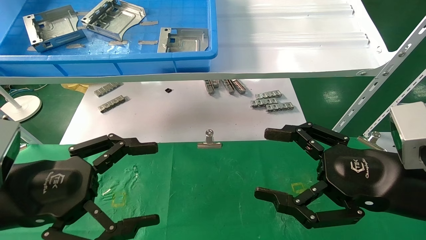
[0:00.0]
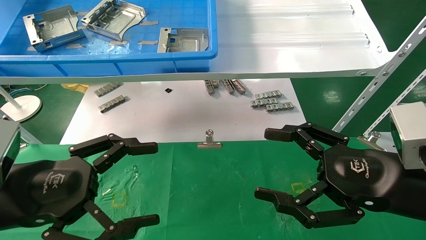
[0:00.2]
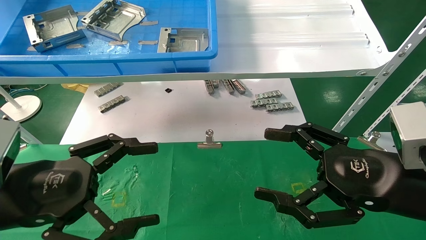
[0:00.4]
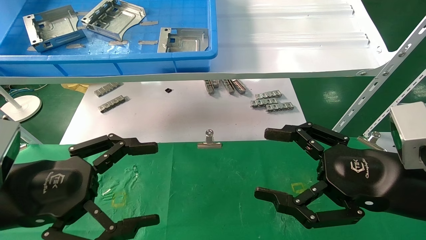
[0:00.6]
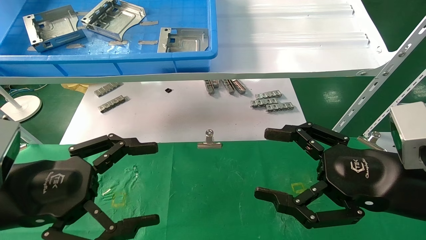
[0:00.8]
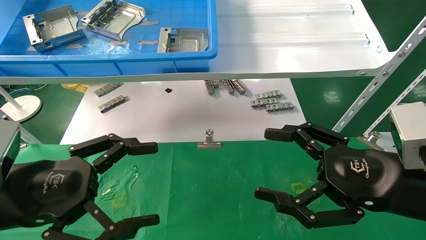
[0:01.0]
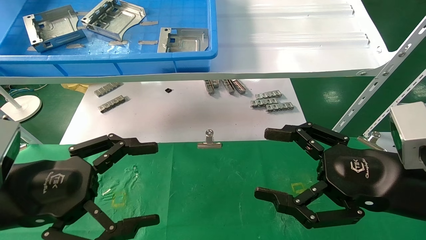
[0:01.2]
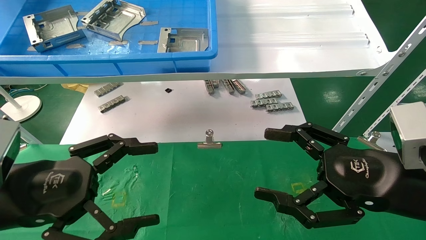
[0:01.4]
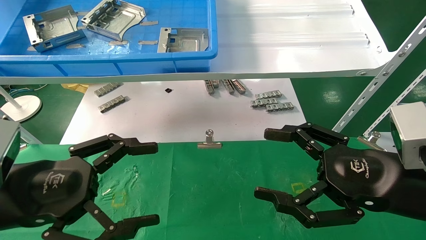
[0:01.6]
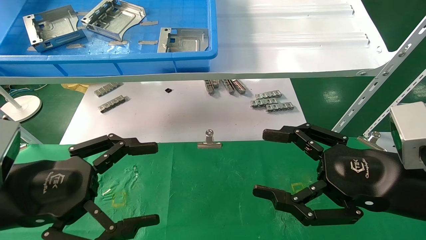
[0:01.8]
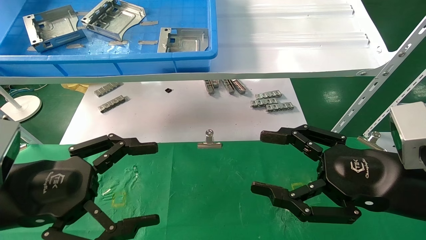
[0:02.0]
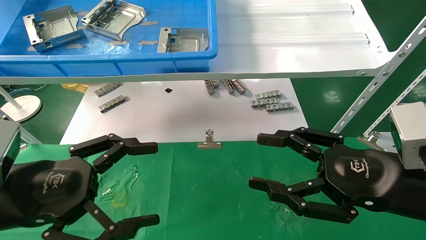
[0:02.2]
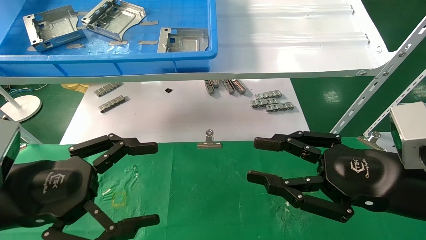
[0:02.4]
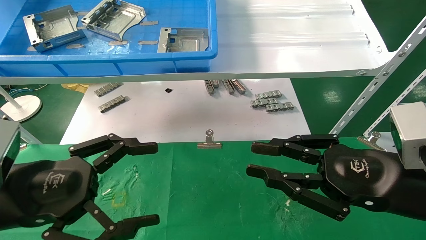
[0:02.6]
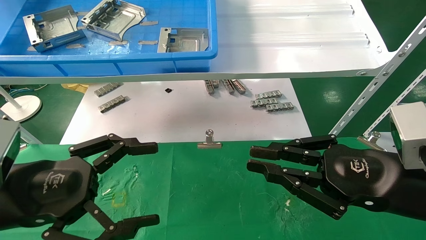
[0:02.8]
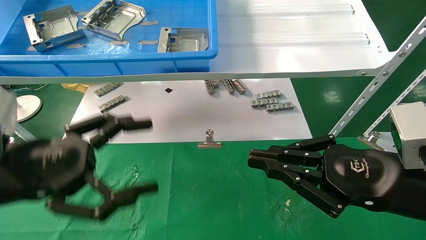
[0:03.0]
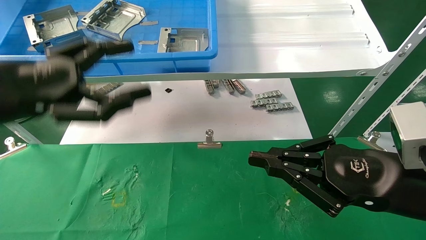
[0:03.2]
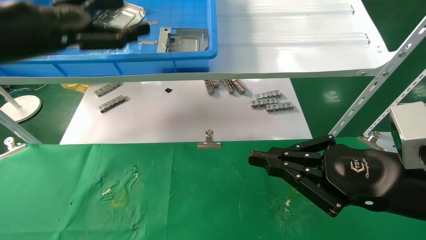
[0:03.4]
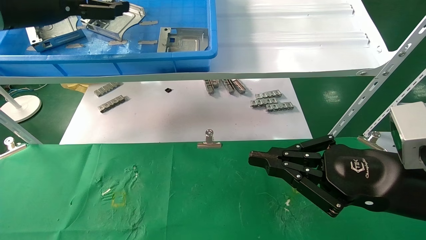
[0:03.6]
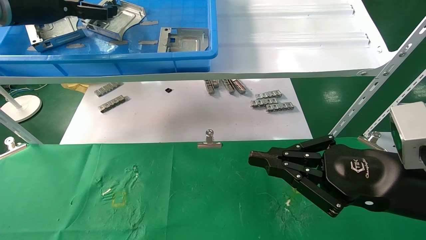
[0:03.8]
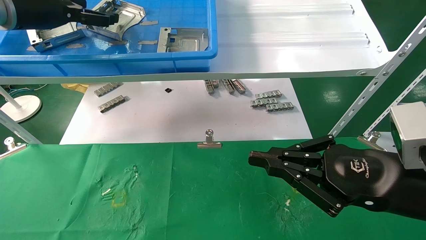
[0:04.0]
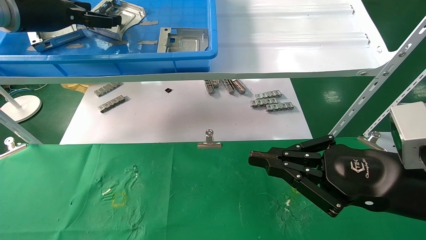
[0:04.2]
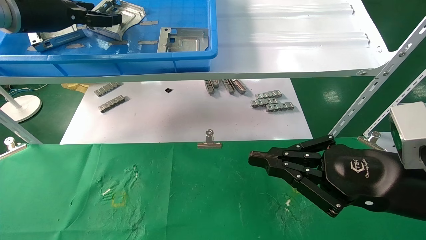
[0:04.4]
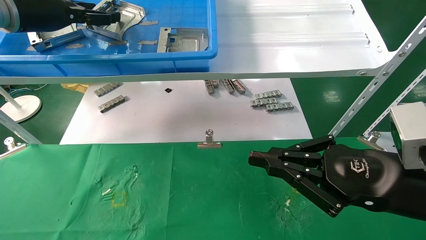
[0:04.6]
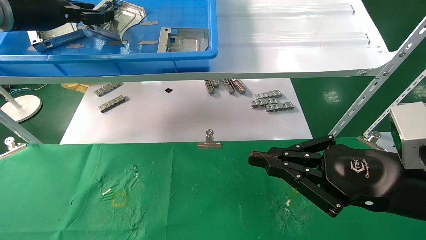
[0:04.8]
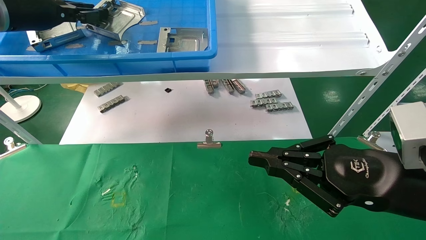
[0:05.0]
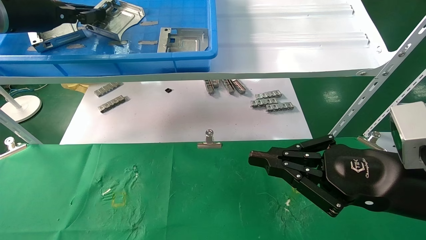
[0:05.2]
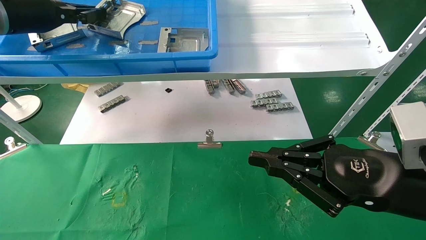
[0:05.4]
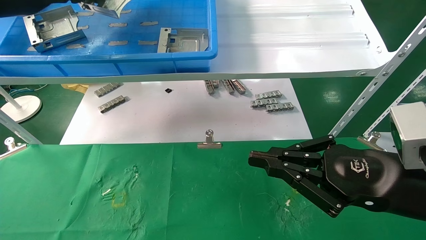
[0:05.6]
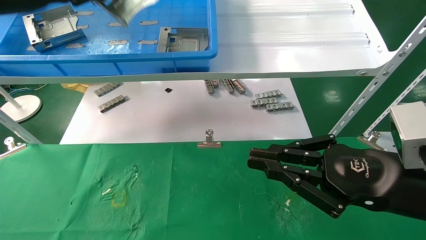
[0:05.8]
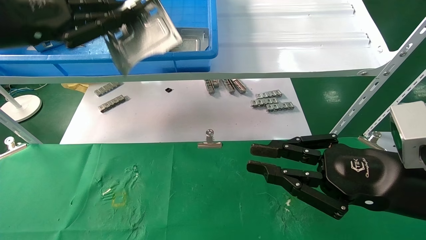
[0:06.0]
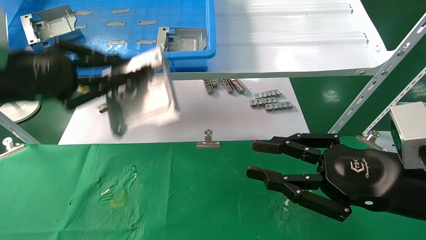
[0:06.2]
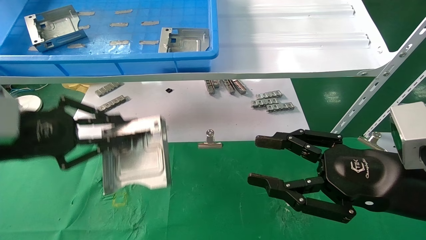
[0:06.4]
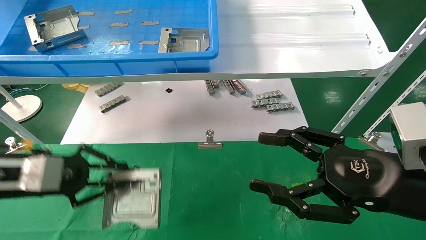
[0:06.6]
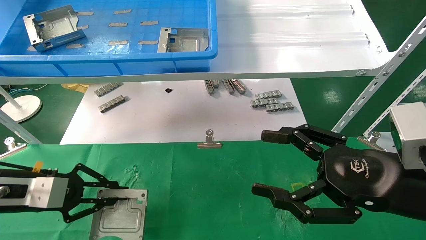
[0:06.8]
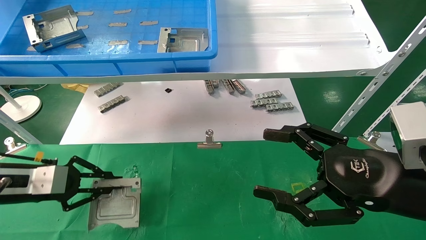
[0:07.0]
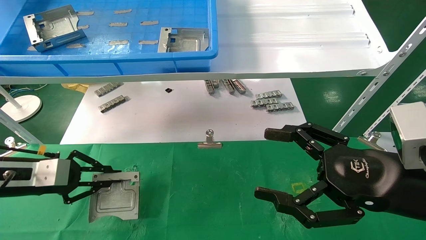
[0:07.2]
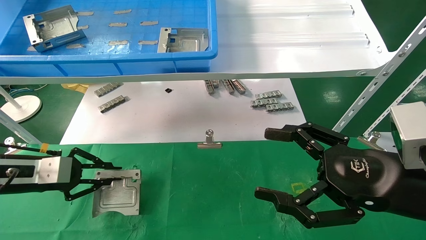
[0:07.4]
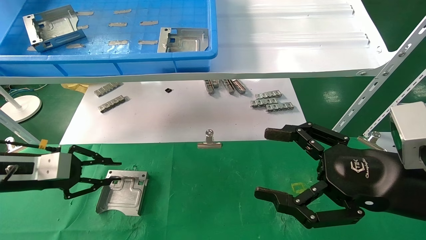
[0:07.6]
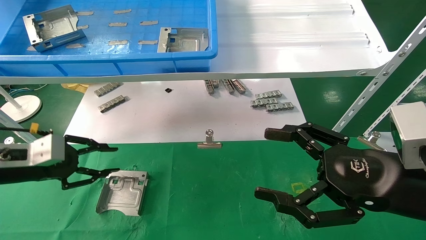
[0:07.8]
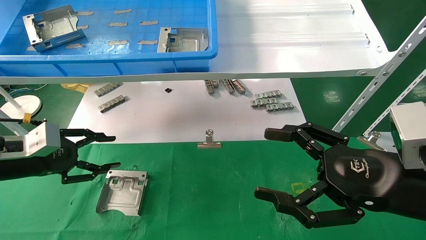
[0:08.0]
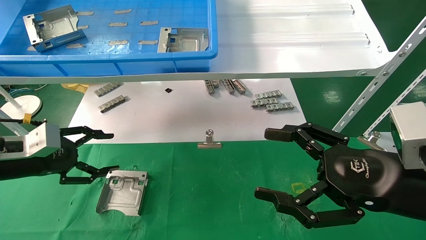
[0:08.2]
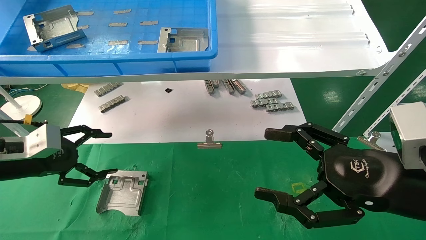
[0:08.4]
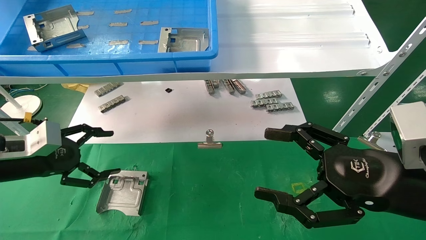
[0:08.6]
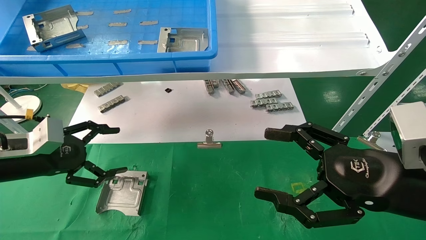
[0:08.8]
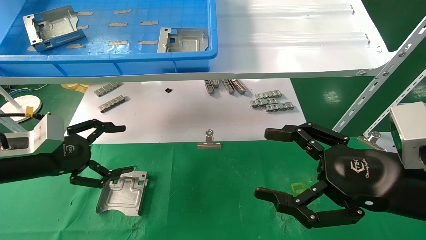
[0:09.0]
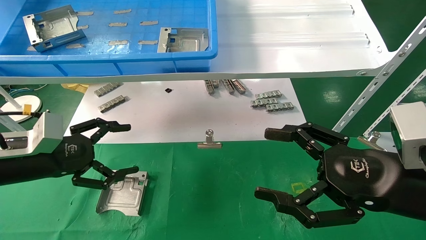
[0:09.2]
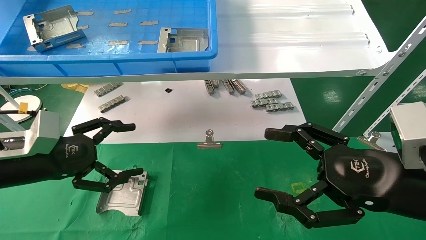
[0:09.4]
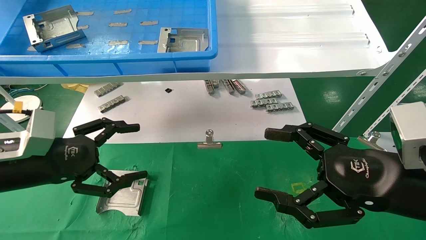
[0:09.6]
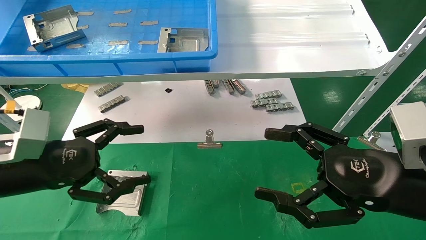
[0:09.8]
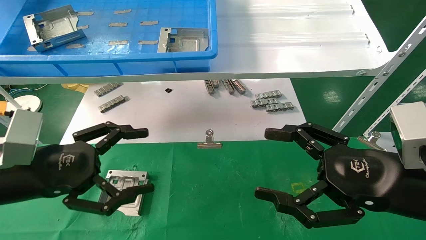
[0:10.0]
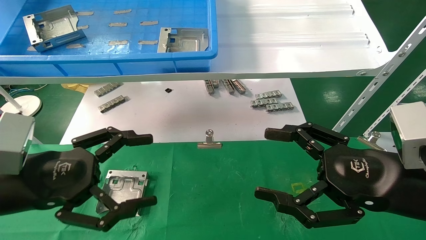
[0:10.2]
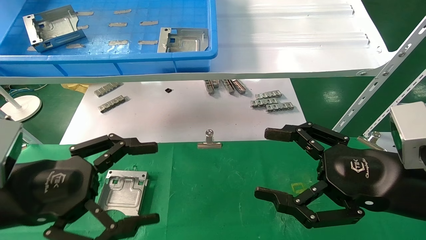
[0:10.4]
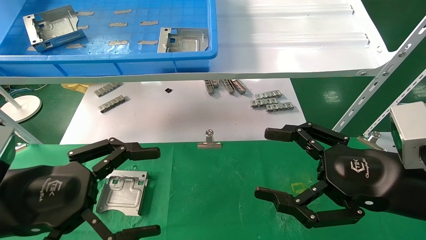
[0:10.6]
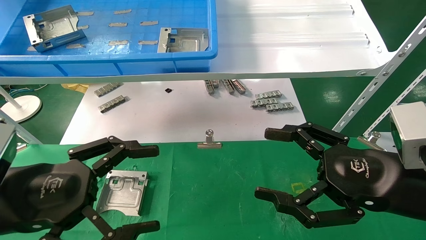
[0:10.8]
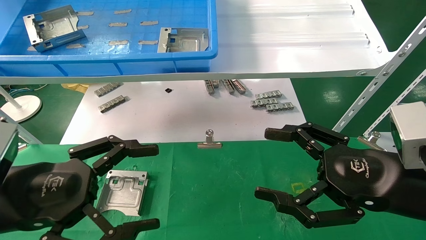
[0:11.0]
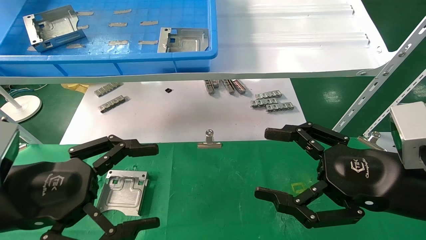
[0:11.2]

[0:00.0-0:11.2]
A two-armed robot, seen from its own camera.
Task of the whole recording: use the mechanical arm to pick up the parts and place them on the table.
Step, 0:03.2 to 0:05.2: Pick up the hard drive bracket from the feeding area.
Step, 0:05.4 to 0:07.8: Place the hard drive bracket into the box.
0:00.0 to 0:01.6: The two grippers keep their place.
0:01.6 to 0:03.2: The left gripper heads upward and forward, covering roughly 10 cm, while the right gripper closes its fingers.
0:03.2 to 0:04.8: The left gripper shifts approximately 20 cm forward and upward, and closes its fingers.
0:04.8 to 0:06.4: The left gripper travels downward and backward by some 20 cm, and closes its fingers; the right gripper opens up.
0:06.4 to 0:08.0: The right gripper opens up. The left gripper shifts roughly 10 cm downward and to the left, and opens.
0:08.0 to 0:09.6: The left gripper moves to the right and backward, some 10 cm, and opens.
0:09.6 to 0:11.2: The left gripper shifts roughly 10 cm backward.

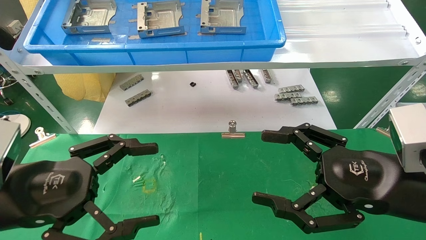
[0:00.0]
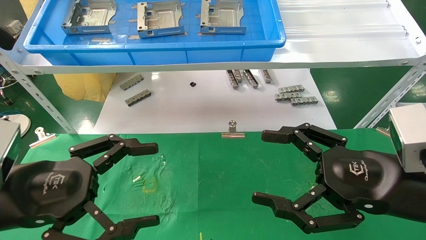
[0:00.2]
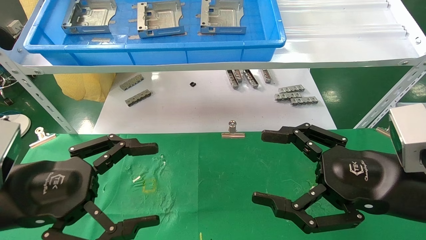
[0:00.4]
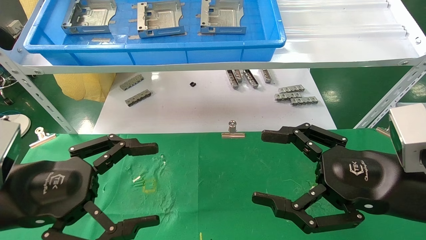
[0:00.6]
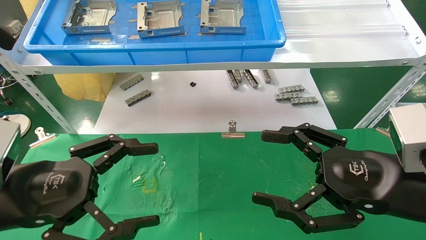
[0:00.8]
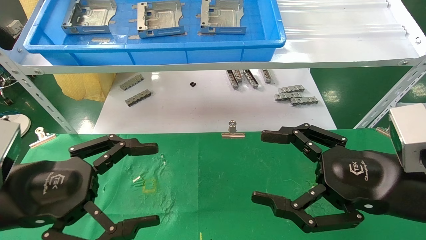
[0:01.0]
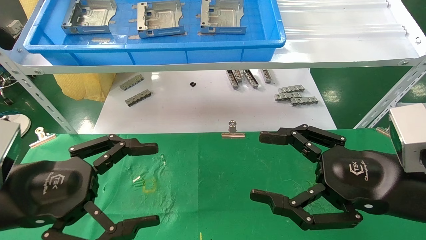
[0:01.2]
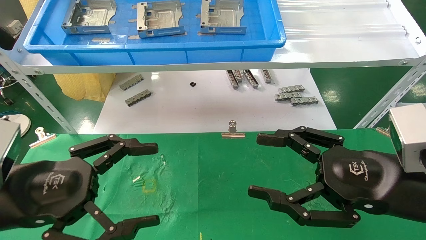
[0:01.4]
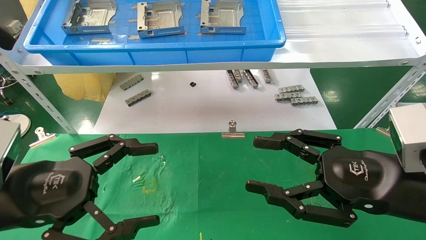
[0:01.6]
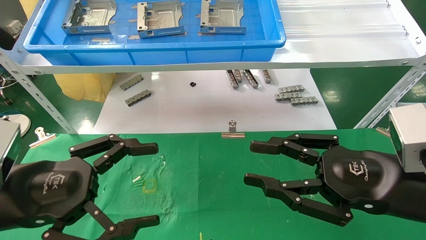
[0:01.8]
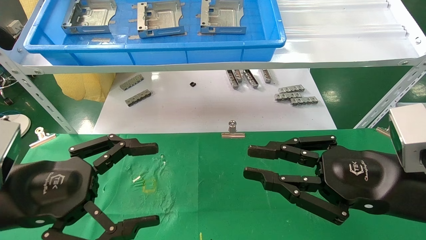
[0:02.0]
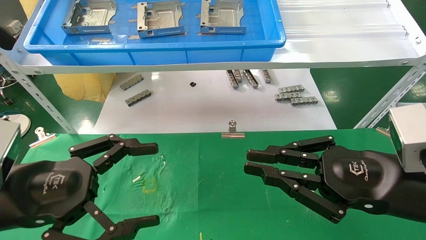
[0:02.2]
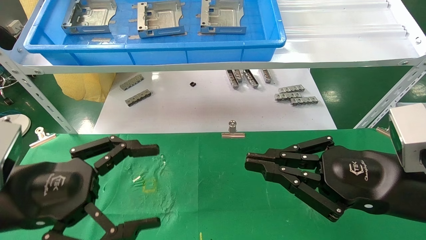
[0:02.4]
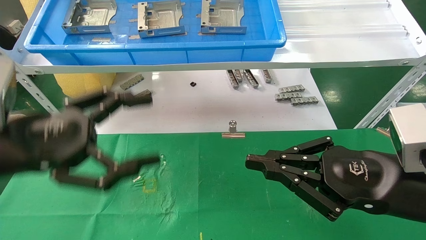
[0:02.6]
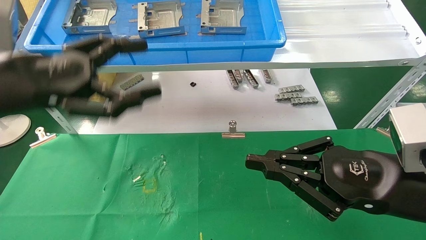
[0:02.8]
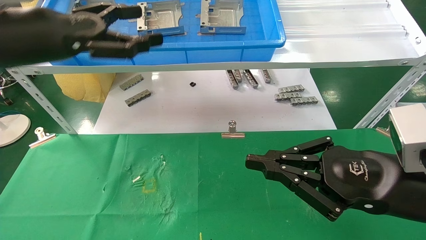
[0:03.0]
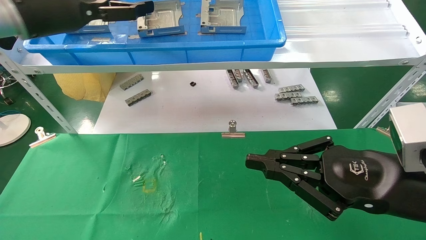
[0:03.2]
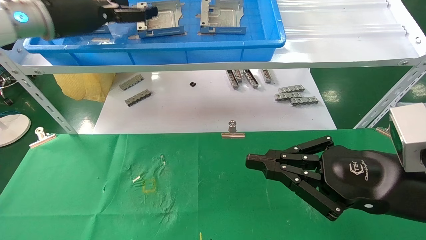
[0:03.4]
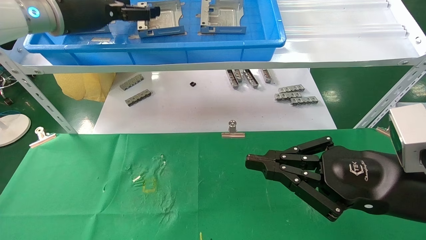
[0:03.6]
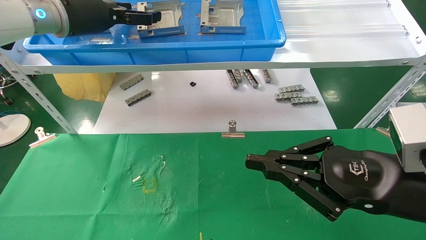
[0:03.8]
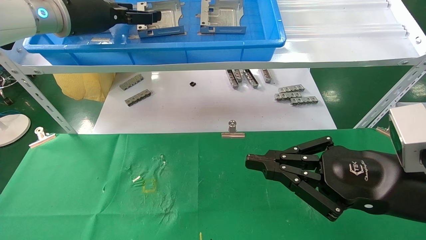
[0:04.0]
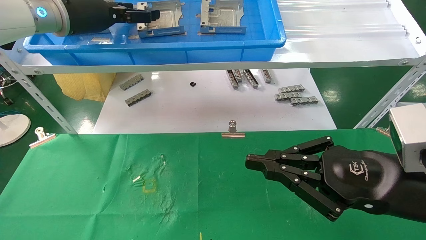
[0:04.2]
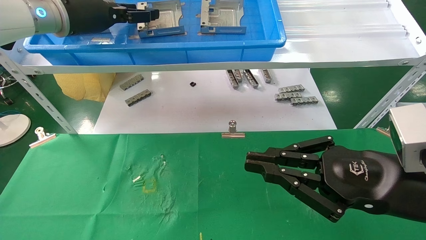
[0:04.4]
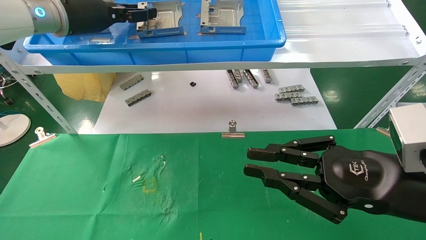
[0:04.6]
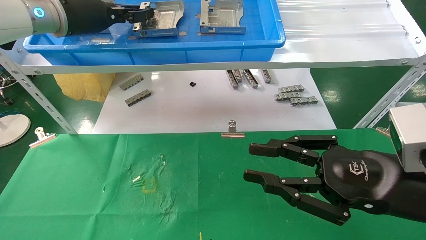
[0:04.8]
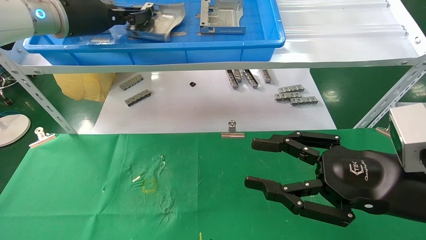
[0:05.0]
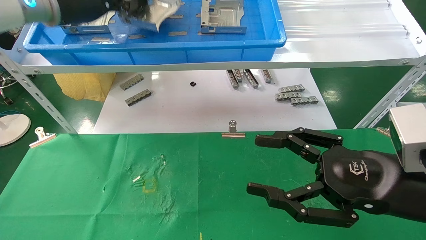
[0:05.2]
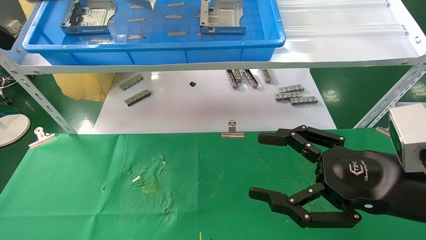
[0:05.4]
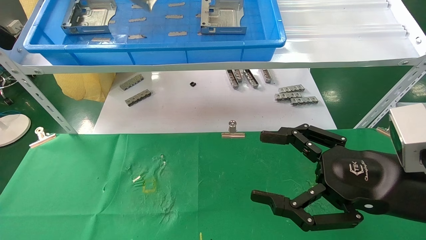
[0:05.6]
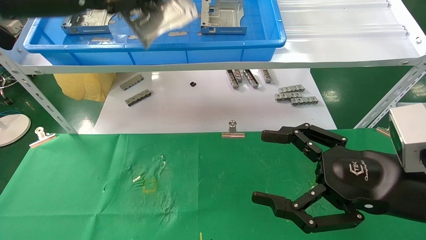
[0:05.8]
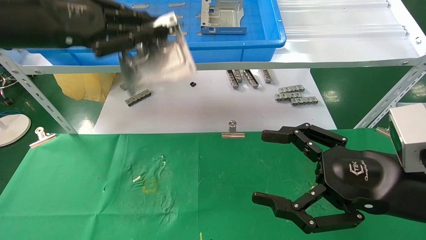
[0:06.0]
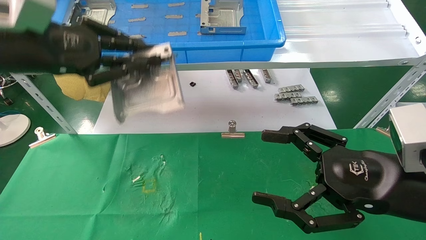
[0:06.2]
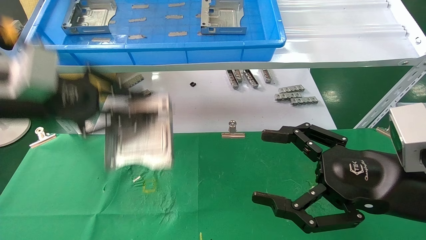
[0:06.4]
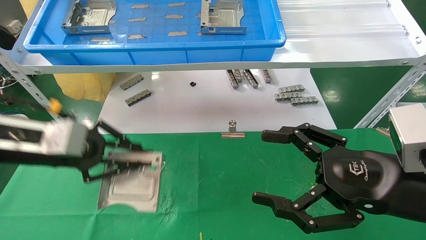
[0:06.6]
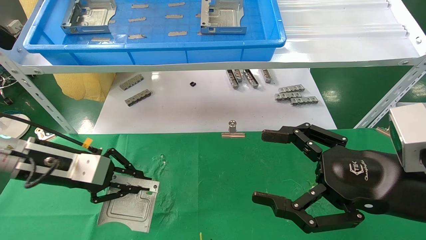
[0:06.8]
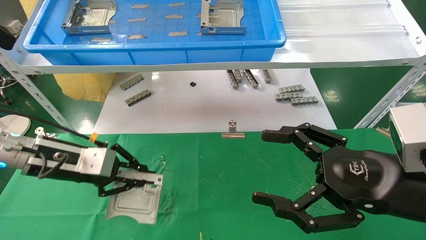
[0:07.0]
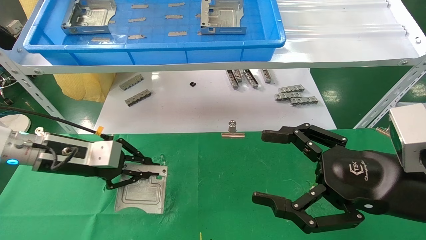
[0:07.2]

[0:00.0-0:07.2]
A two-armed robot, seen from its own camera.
Task of the whole recording: use the mechanical arm to pick up the parts and place them on the table.
Step, 0:02.8 to 0:05.2: Pick up the hard drive bracket from the feeding area.
0:00.0 to 0:01.4: Both grippers stay about where they are.
0:01.4 to 0:02.8: The left gripper travels upward and forward by some 15 cm. The right gripper closes.
0:02.8 to 0:04.4: The left gripper travels forward and upward by roughly 20 cm.
0:04.4 to 0:05.8: The right gripper opens; the left gripper travels backward by some 10 cm, and closes.
0:05.8 to 0:07.2: The left gripper heads downward, covering roughly 25 cm.
